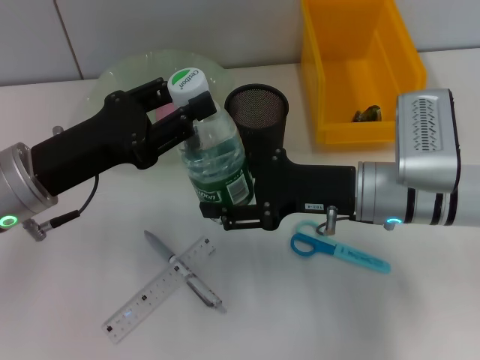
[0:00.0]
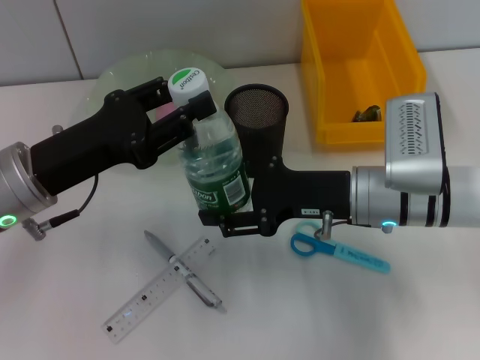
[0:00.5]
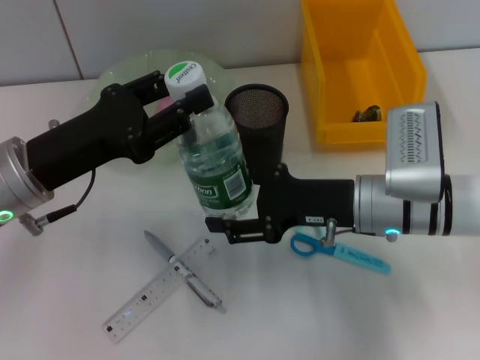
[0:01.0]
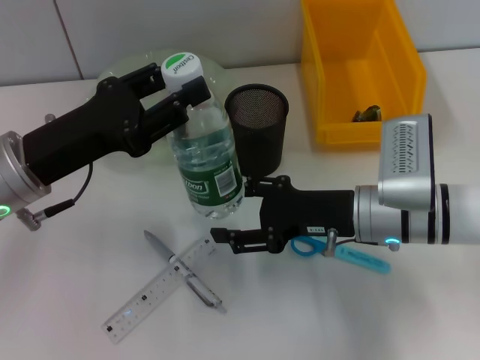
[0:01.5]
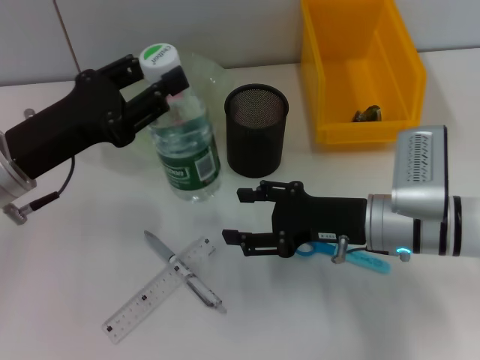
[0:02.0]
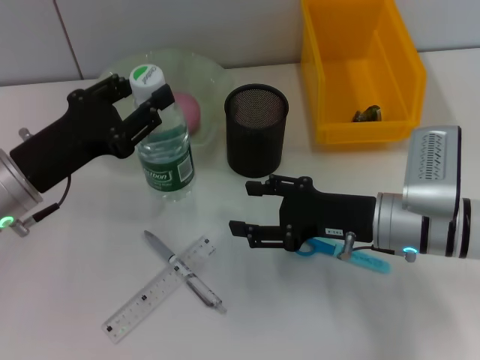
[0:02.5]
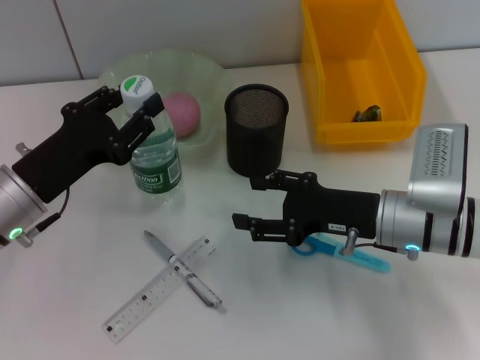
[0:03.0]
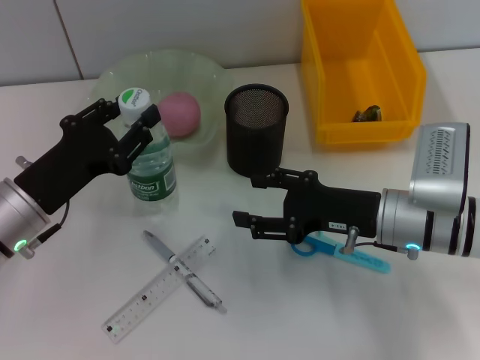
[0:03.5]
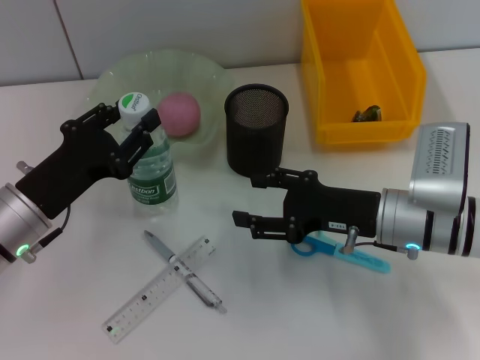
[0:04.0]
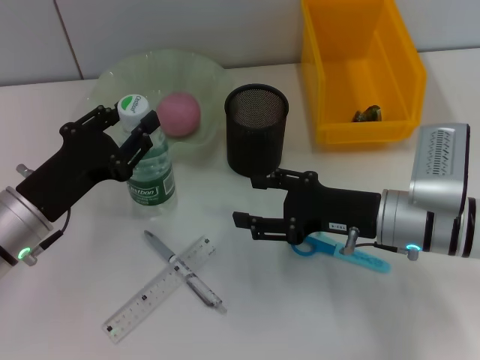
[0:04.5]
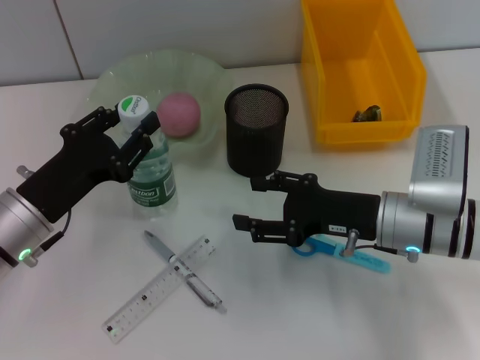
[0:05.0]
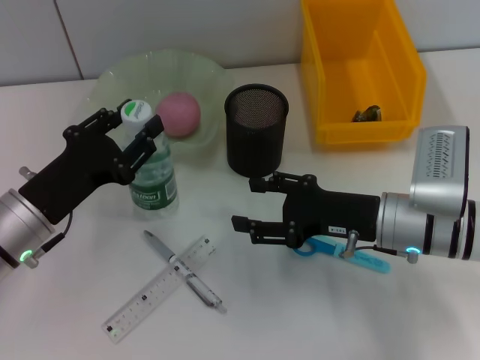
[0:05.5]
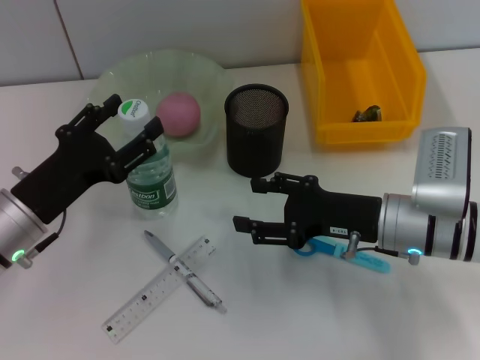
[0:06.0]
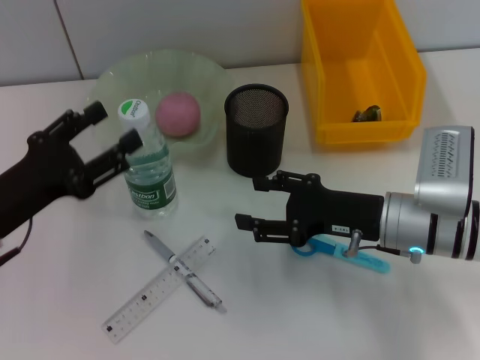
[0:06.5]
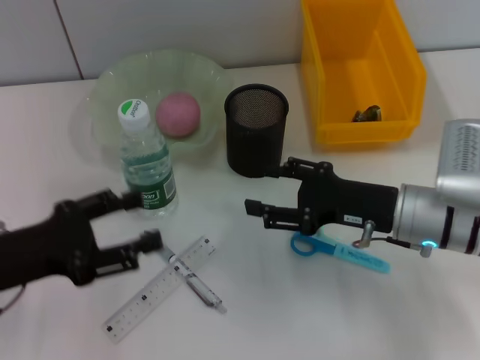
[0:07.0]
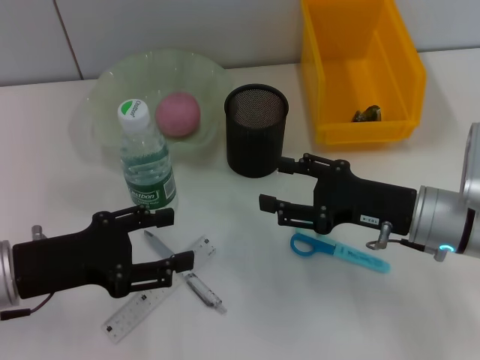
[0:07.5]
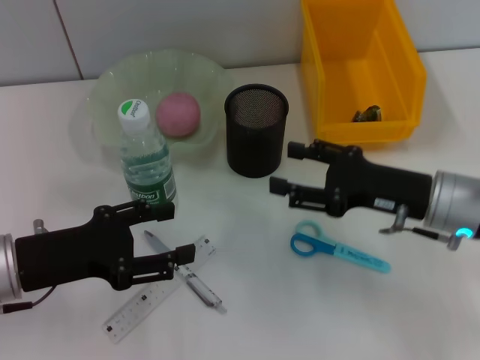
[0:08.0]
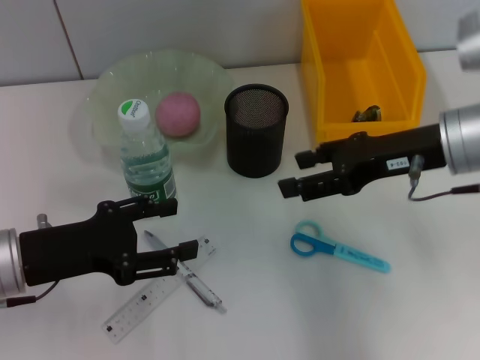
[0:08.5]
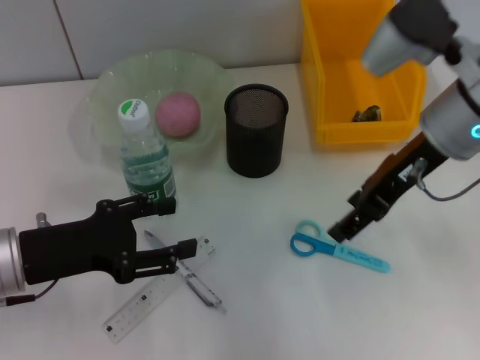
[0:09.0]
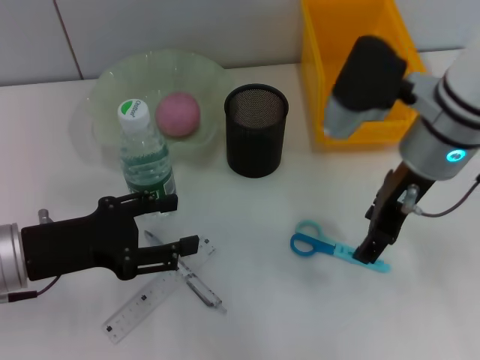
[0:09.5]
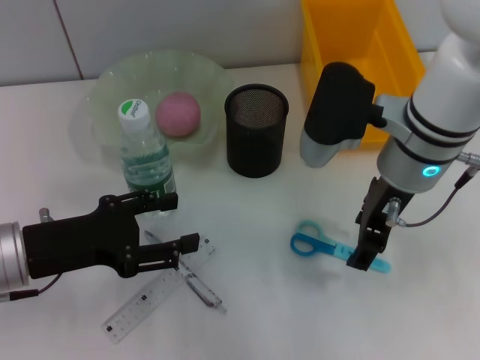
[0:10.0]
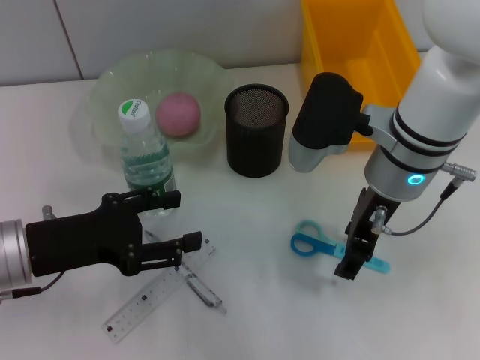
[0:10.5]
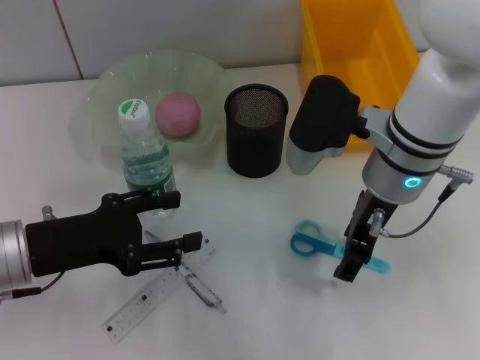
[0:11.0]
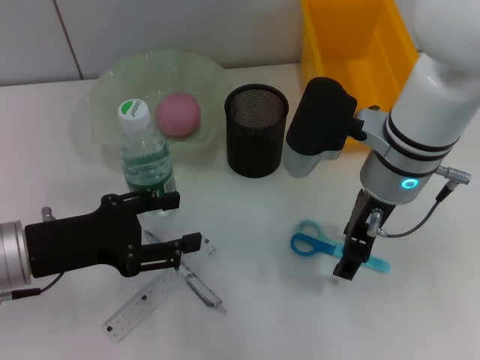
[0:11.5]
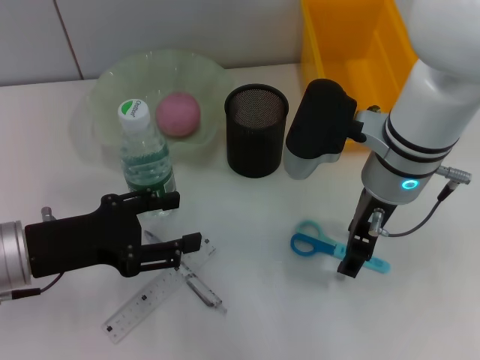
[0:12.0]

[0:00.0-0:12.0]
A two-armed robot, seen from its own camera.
Step, 0:02.0 to 0:06.0: Place the water bottle on the table with the left hand.
0:02.0 to 0:04.0: The left gripper is displaced downward by about 5 cm.
0:04.0 to 0:06.0: The left gripper opens.
0:08.0 to 0:10.0: The right gripper heads upward and to the left, covering about 10 cm.
0:10.0 to 0:12.0: The grippers move only a little.

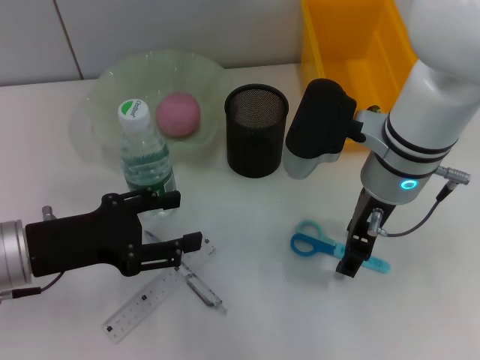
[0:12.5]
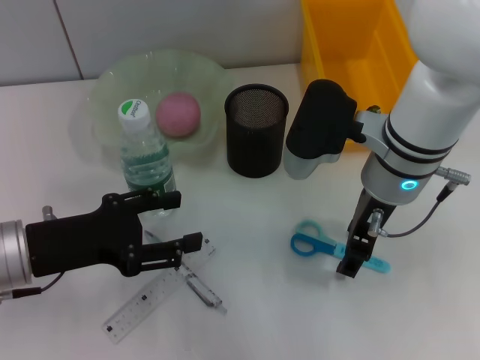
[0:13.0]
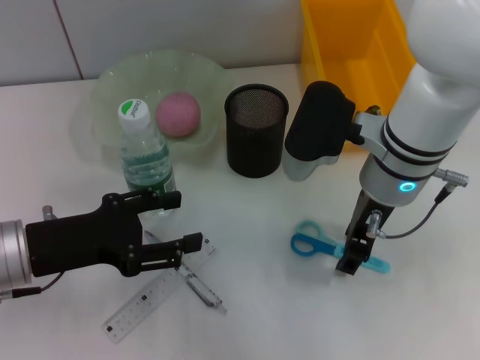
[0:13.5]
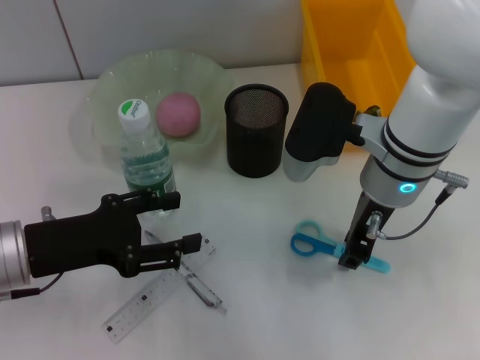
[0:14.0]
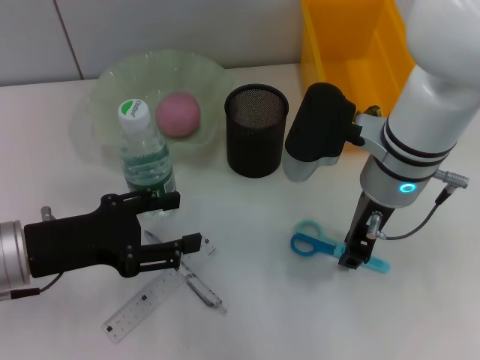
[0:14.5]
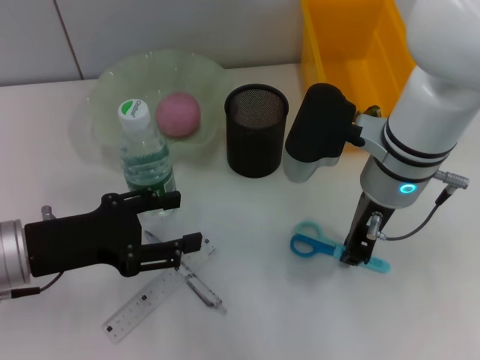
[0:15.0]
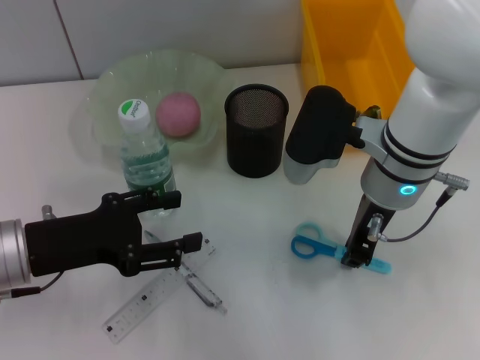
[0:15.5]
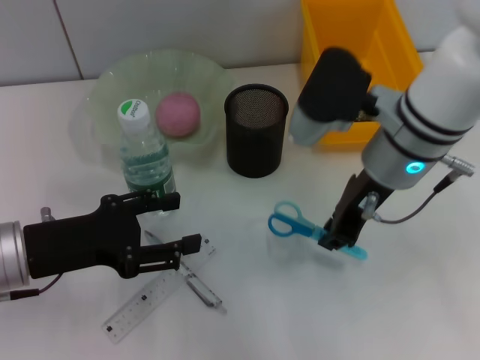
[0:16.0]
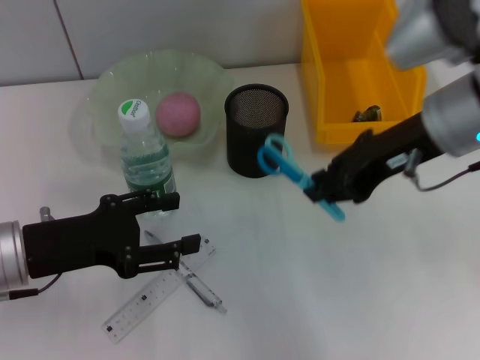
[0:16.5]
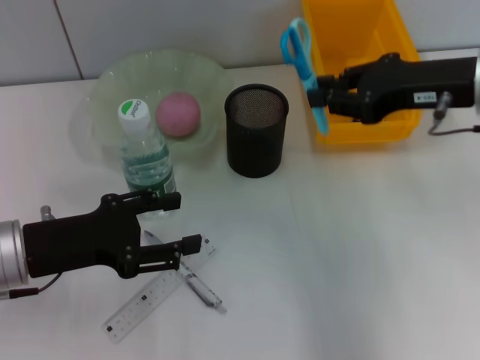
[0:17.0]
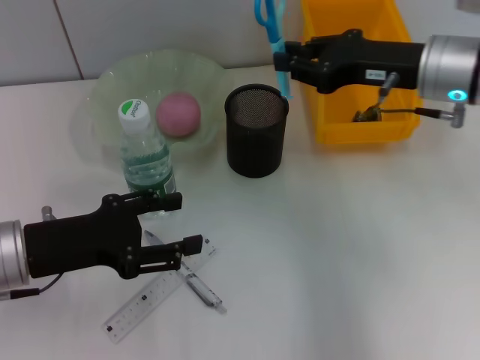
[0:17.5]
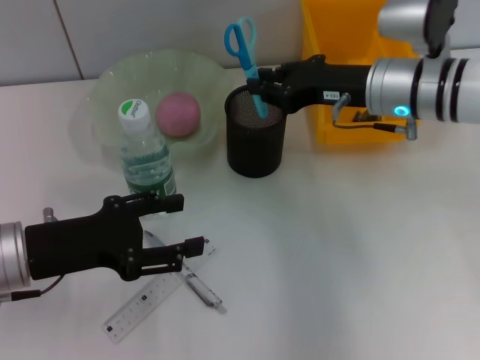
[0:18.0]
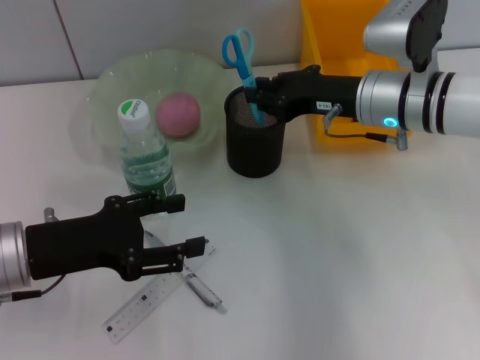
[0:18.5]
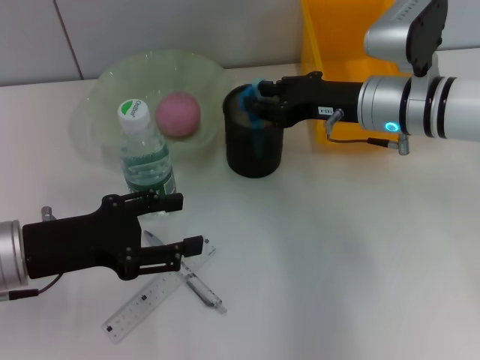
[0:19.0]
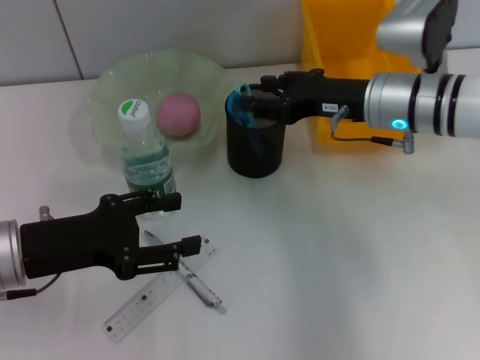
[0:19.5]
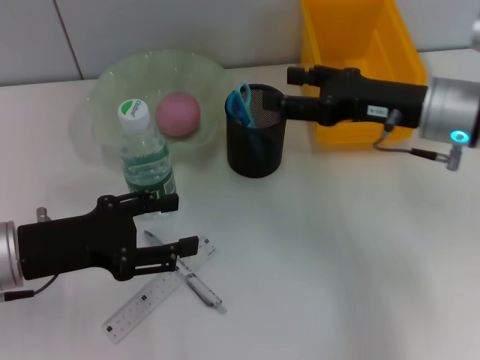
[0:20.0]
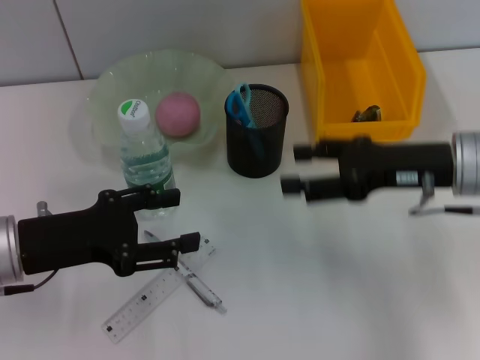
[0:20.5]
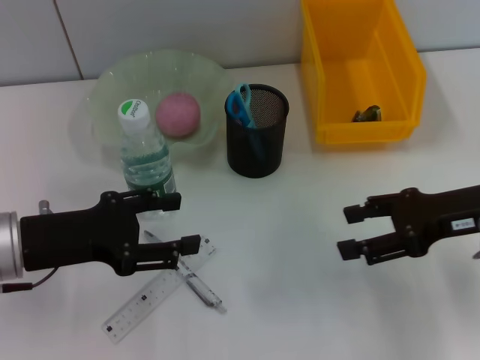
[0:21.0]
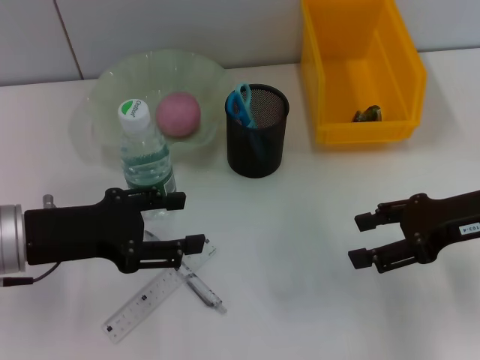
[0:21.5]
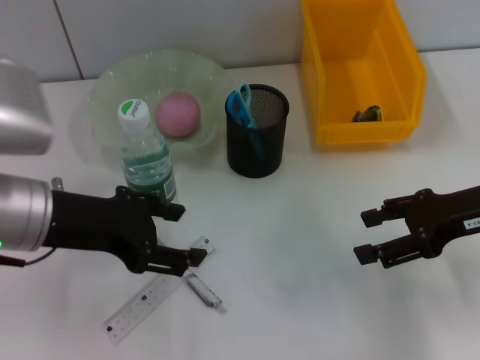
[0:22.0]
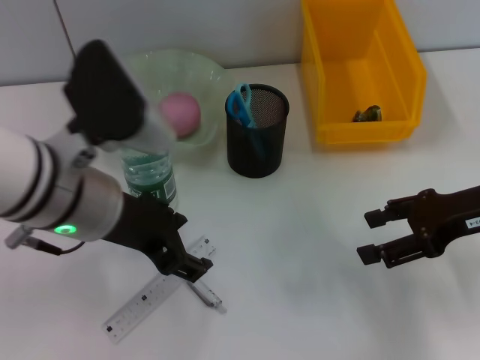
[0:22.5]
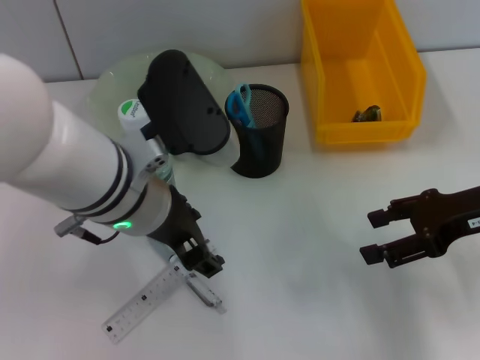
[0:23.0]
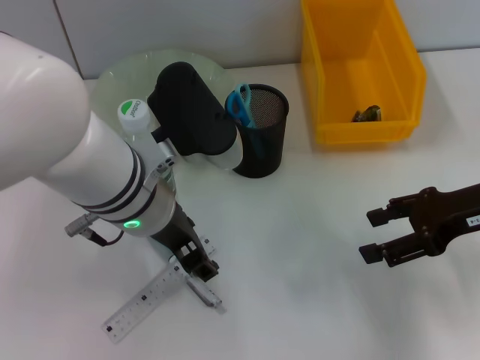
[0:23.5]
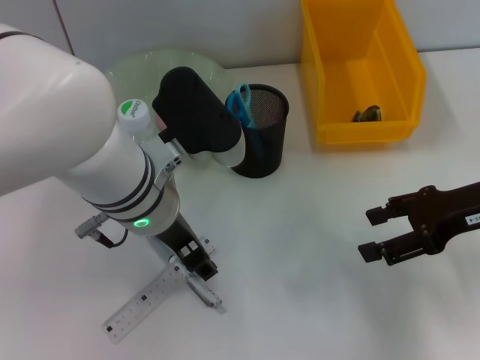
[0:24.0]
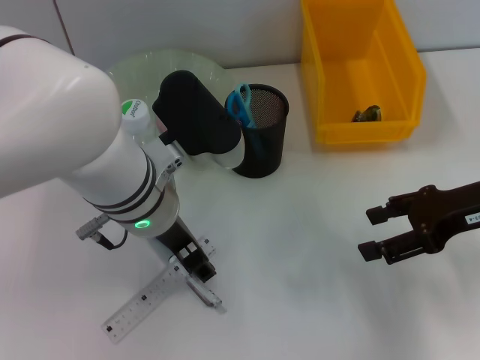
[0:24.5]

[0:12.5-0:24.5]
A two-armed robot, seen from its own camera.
Step, 0:12.5 to 0:14.5: Grab the blue scissors with the right hand.
Step, 0:15.0 to 0:19.5: Place the blue scissors into the pen holder with the right hand.
0:12.5 to 0:14.5: The right gripper closes.
0:14.5 to 0:16.5: The right gripper travels upward and to the right by approximately 10 cm.
0:16.5 to 0:18.5: The right gripper shifts approximately 10 cm downward and forward.
0:18.5 to 0:20.5: The right gripper goes about 10 cm backward and to the right, and opens.
0:20.5 to 0:22.5: The right gripper is displaced to the right by approximately 5 cm. Meanwhile the left gripper moves to the right and upward, some 15 cm.
0:22.5 to 0:24.5: The left gripper shifts about 5 cm to the right.

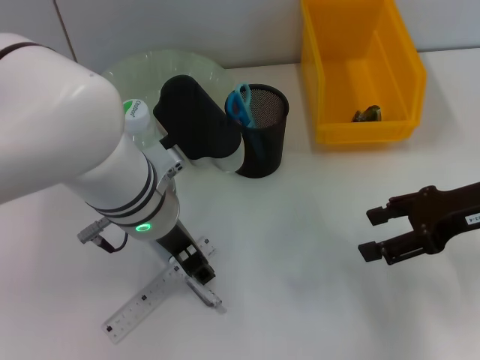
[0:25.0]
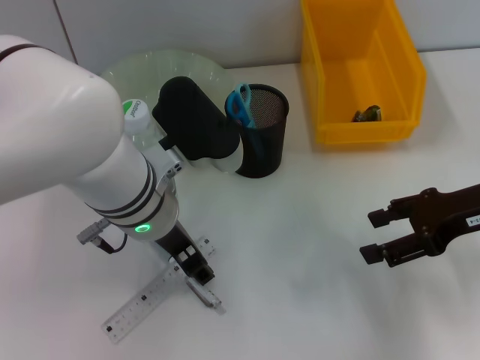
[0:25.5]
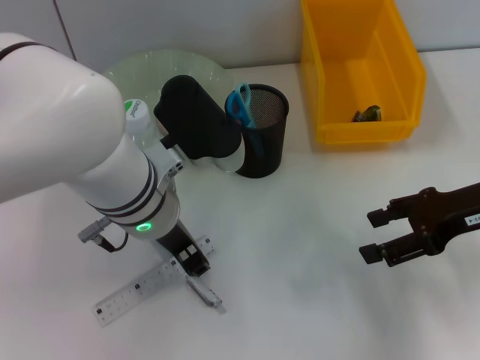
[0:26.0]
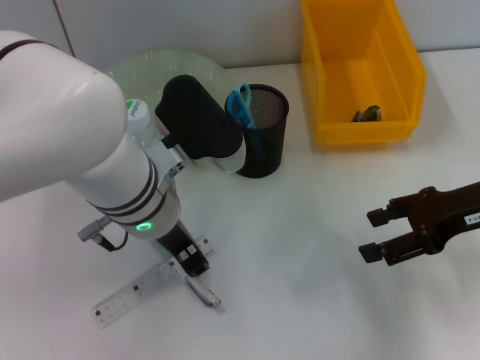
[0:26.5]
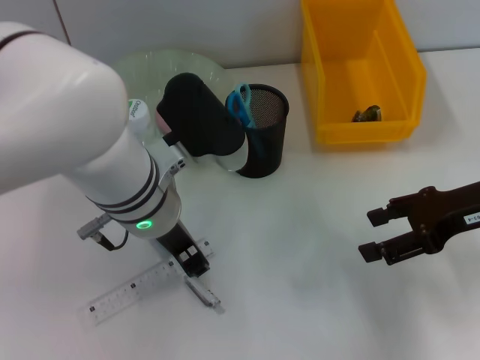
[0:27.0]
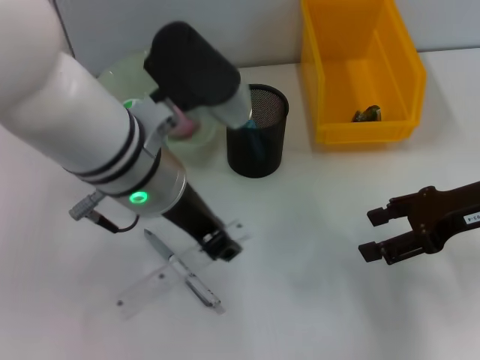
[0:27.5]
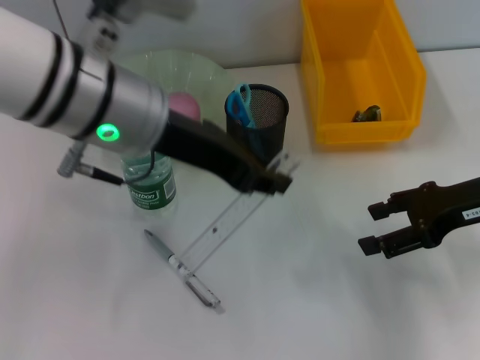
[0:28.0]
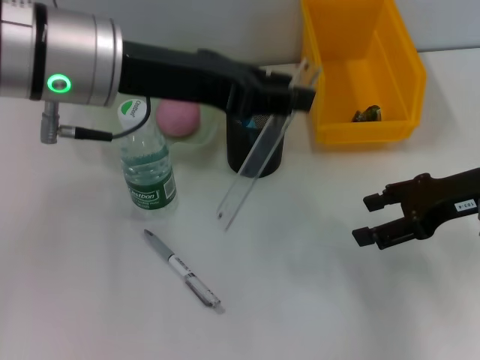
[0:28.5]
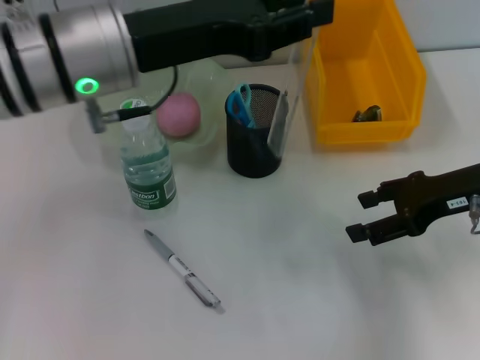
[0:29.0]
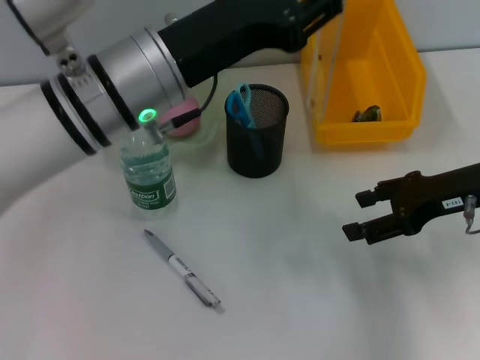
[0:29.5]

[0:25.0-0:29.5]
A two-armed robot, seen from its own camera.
0:25.0 to 0:27.0: The left gripper closes its fingers.
0:27.0 to 0:29.5: The left gripper moves upward, some 5 cm.
